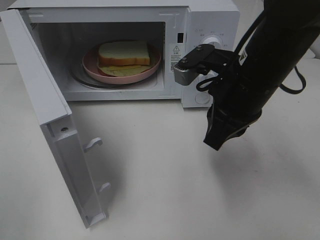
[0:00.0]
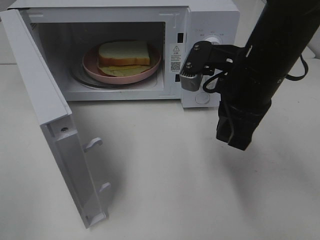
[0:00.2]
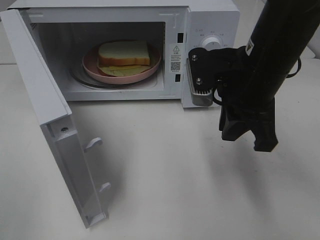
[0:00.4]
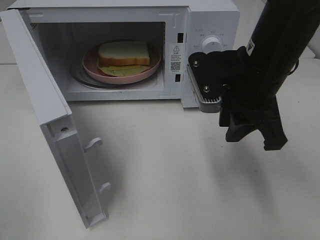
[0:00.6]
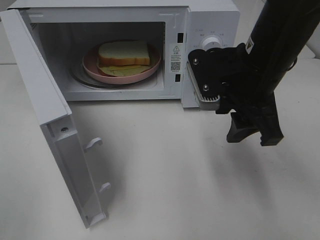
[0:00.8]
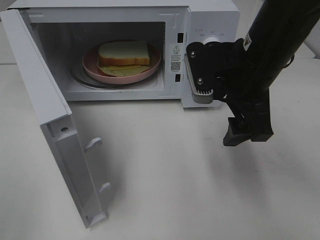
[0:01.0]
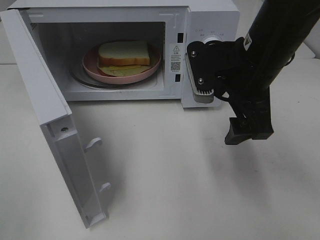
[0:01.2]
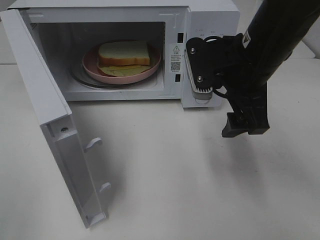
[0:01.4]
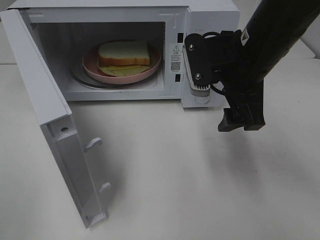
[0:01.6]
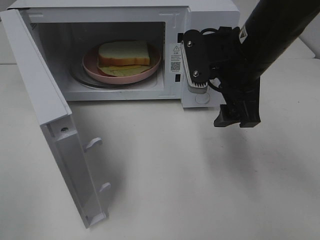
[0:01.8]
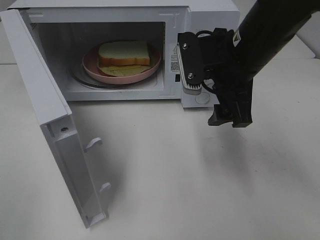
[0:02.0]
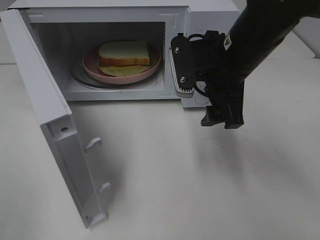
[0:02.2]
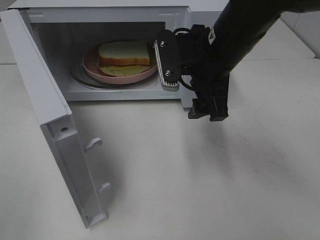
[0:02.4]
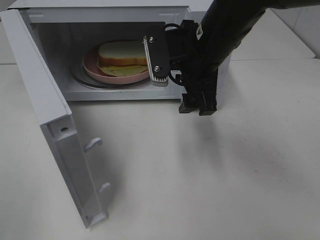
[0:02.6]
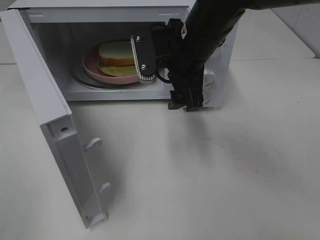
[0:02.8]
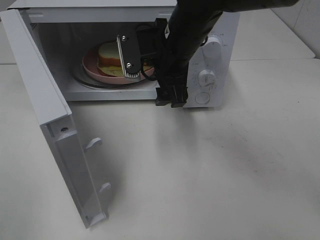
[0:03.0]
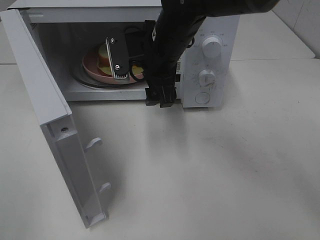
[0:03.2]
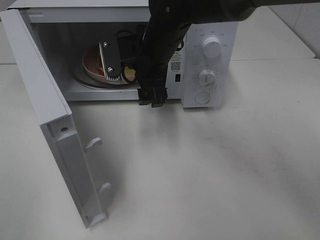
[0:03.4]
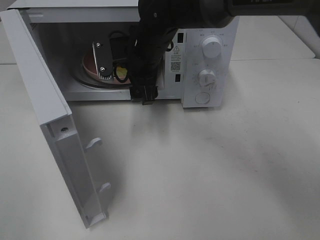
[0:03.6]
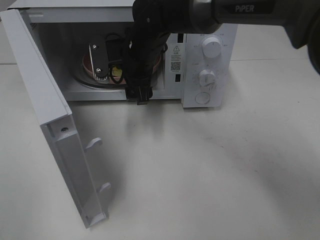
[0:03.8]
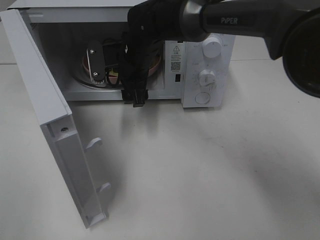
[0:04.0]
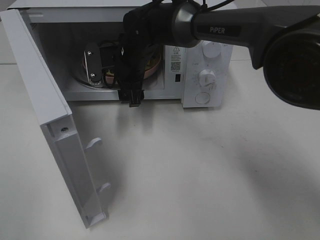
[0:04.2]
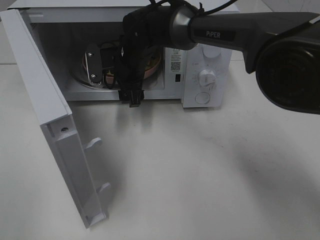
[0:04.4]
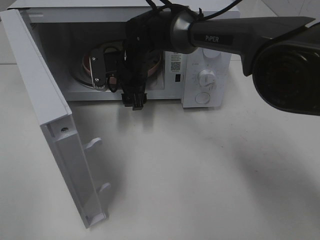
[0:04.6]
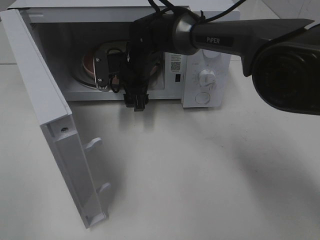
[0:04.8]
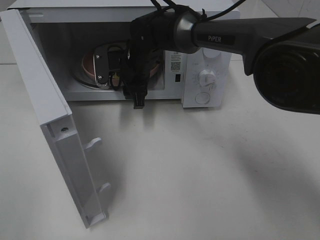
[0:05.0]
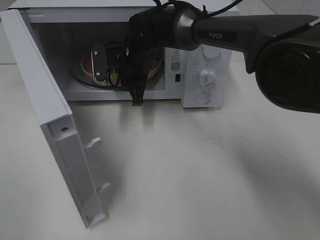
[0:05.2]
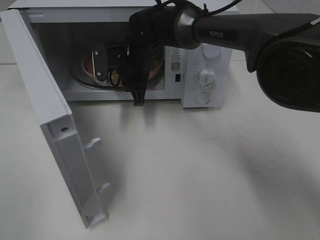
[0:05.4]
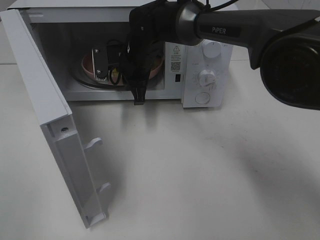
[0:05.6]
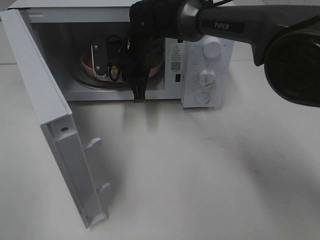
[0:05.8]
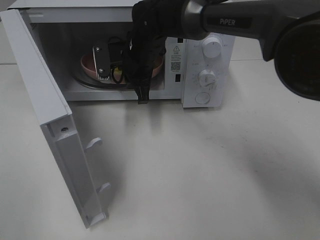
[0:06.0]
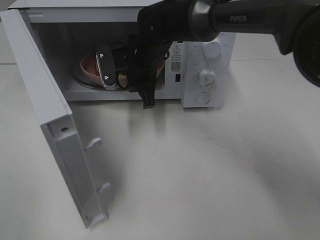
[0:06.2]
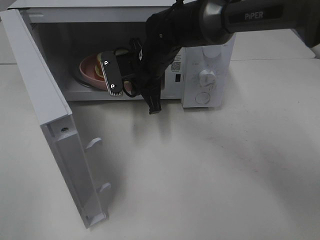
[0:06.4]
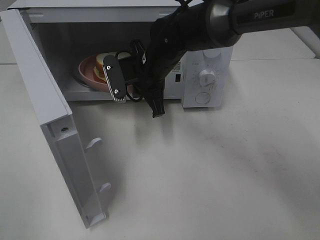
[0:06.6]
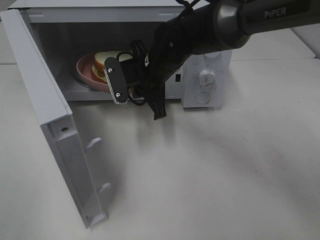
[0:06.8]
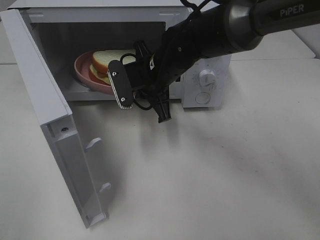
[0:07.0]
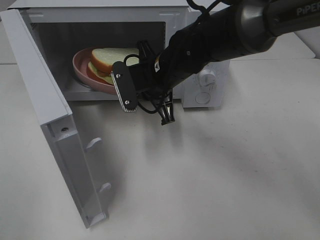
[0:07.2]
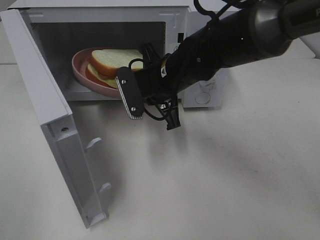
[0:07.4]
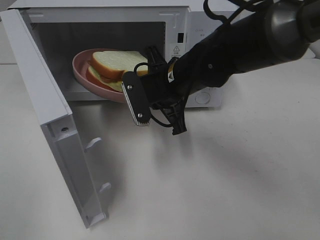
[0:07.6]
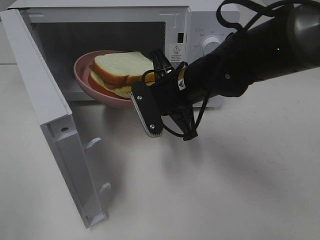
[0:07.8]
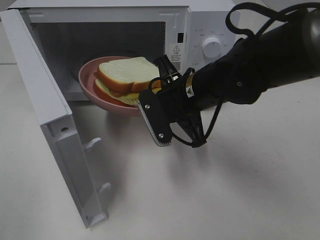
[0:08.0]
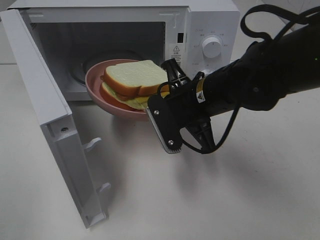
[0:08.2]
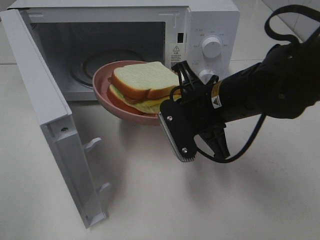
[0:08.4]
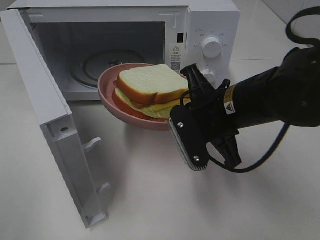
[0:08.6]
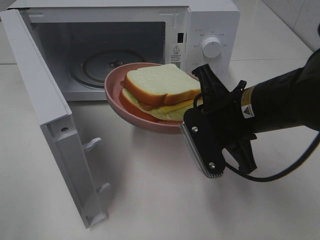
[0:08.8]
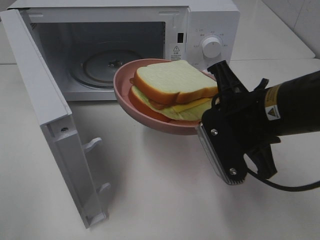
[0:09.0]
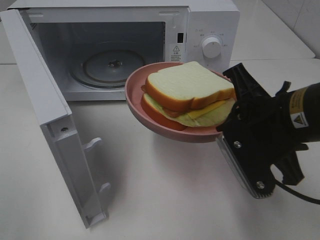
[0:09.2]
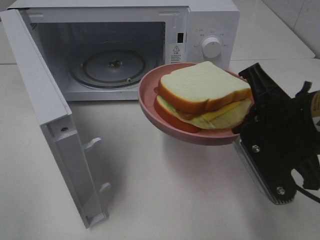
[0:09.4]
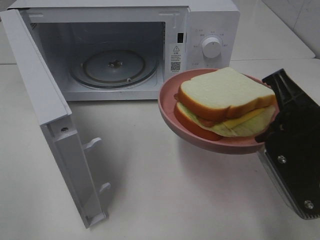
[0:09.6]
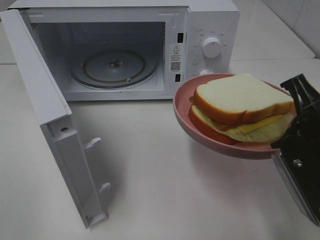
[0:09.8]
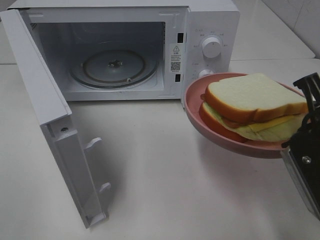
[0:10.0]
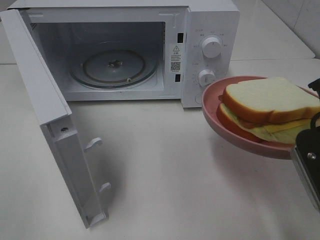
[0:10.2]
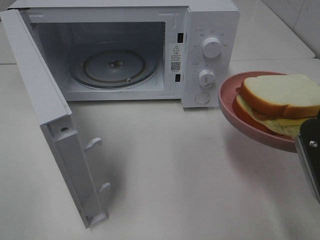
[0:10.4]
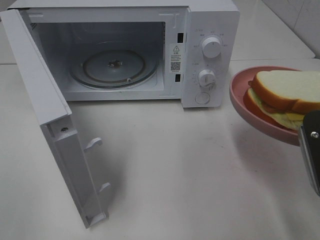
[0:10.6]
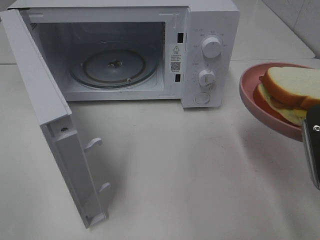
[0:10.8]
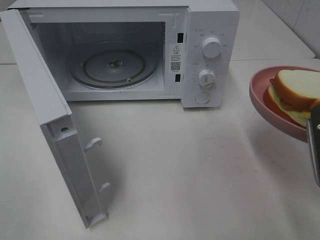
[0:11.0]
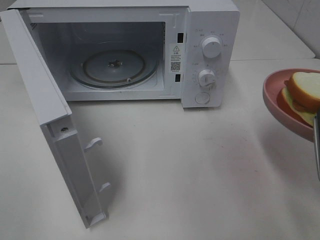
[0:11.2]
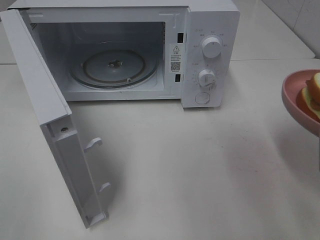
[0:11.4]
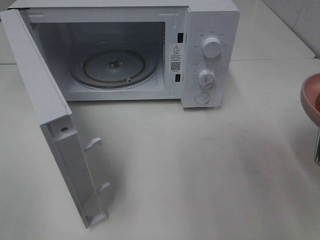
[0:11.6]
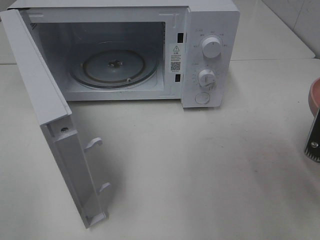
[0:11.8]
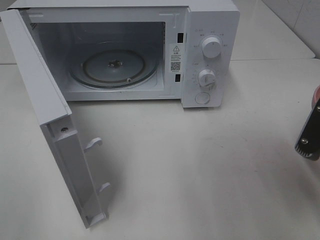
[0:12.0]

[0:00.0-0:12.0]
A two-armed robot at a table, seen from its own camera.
Task of the whole recording: Heat Sandwich.
Step, 0:00.0 to 0:05.2: Right hand: grab the plate with the sandwich.
0:00.0 to 0:01.6: The right gripper opens its fingers.
0:01.6 to 0:03.0: The right gripper travels to the left and forward by some 10 cm.
0:03.0 to 0:04.4: The right gripper shifts approximately 15 cm forward, to the left and downward.
0:04.4 to 0:06.0: The right gripper closes its fingers.
0:06.0 to 0:07.6: The right gripper goes roughly 10 cm backward and to the right.
0:07.6 to 0:09.0: The right gripper moves backward and to the right, some 15 cm.
0:09.0 to 0:10.4: The right gripper heads to the right and backward, covering approximately 10 cm.

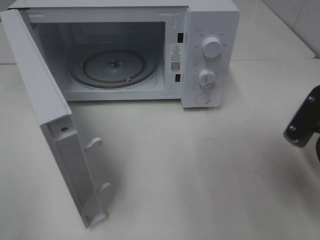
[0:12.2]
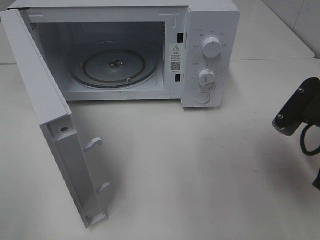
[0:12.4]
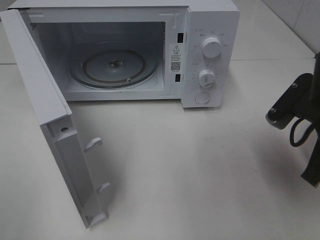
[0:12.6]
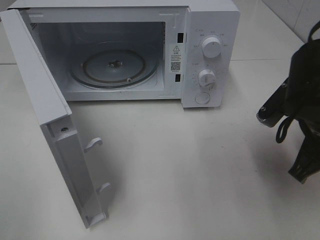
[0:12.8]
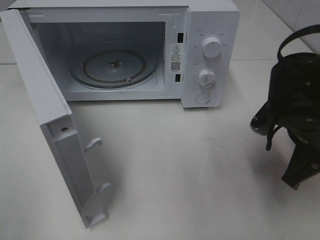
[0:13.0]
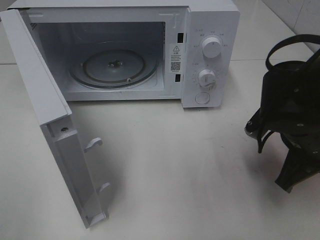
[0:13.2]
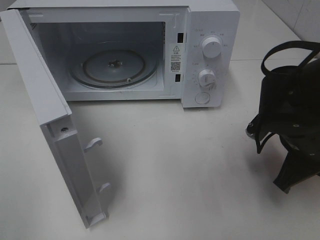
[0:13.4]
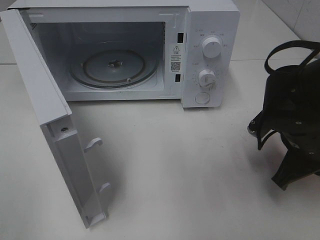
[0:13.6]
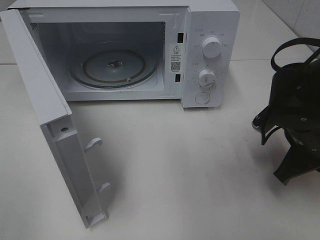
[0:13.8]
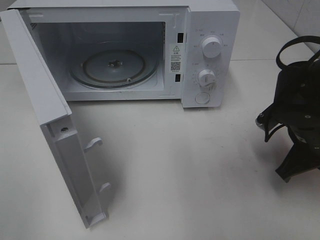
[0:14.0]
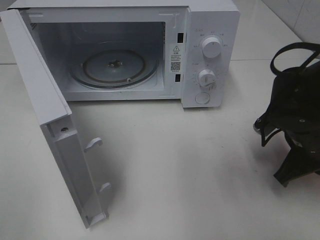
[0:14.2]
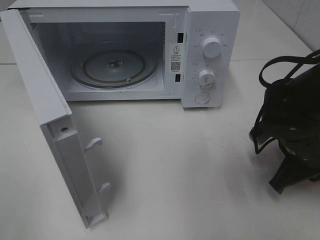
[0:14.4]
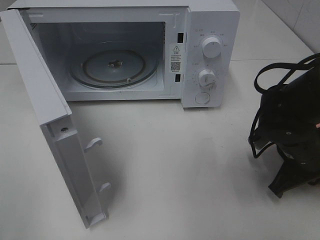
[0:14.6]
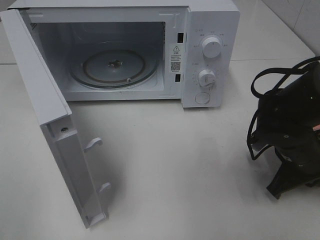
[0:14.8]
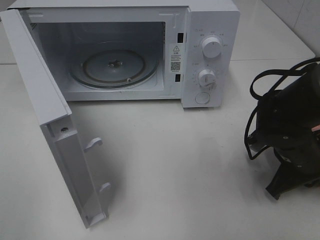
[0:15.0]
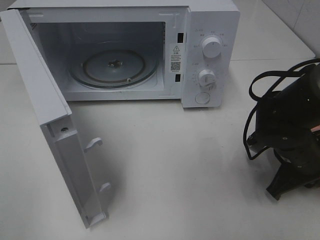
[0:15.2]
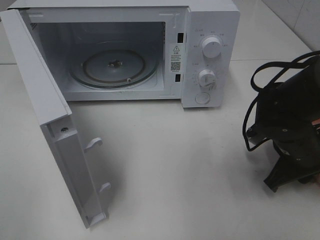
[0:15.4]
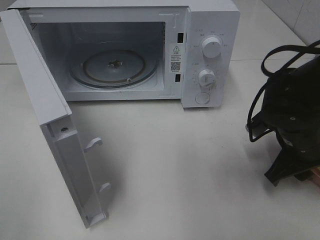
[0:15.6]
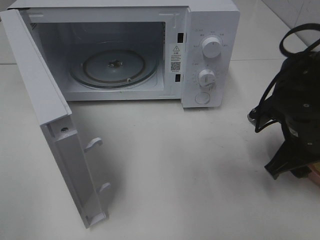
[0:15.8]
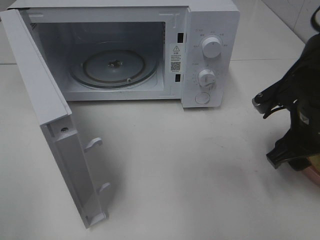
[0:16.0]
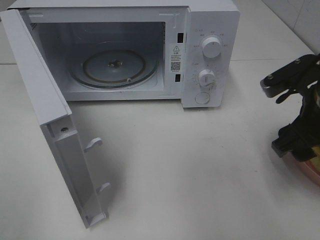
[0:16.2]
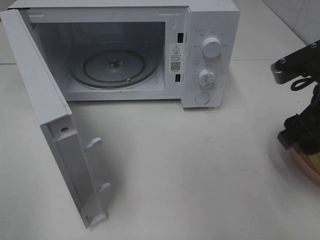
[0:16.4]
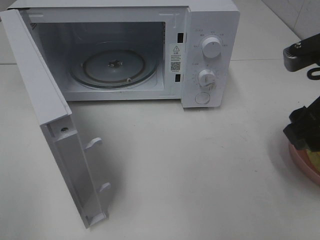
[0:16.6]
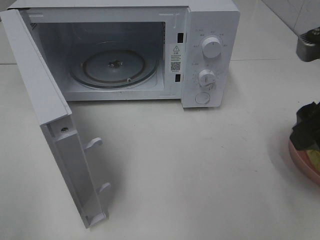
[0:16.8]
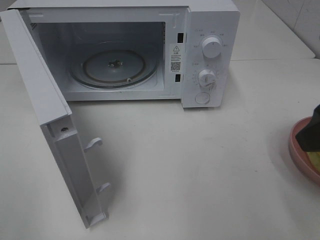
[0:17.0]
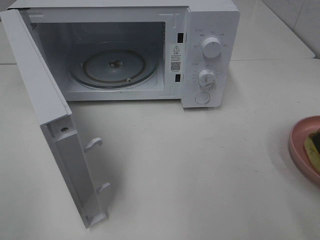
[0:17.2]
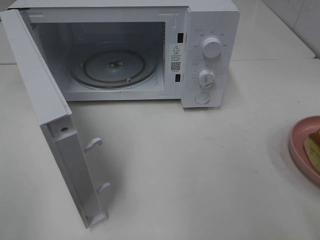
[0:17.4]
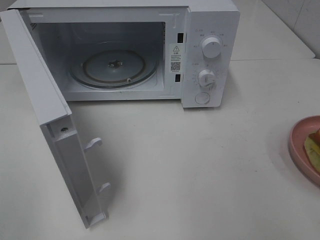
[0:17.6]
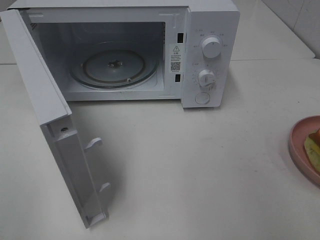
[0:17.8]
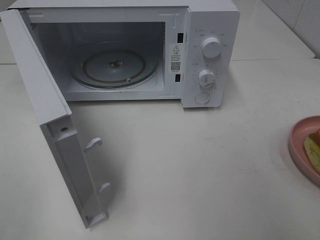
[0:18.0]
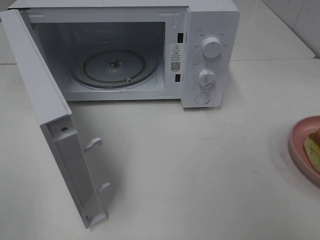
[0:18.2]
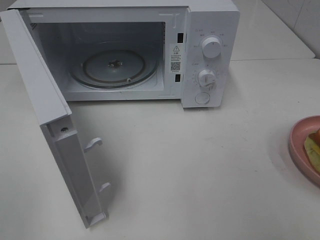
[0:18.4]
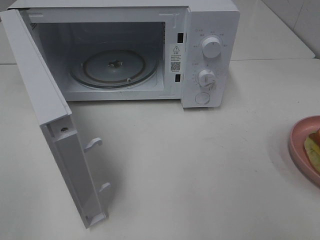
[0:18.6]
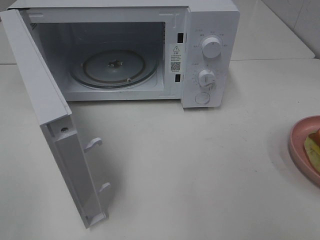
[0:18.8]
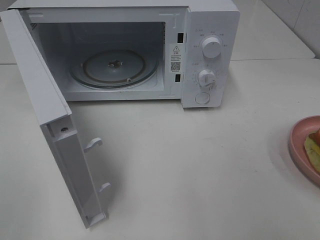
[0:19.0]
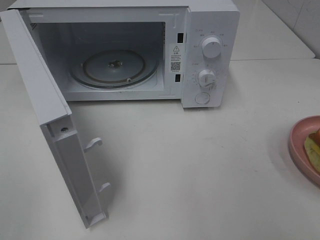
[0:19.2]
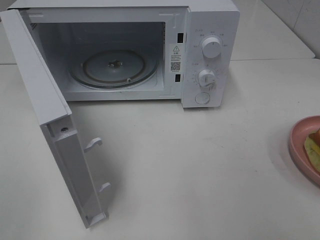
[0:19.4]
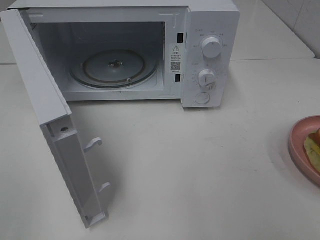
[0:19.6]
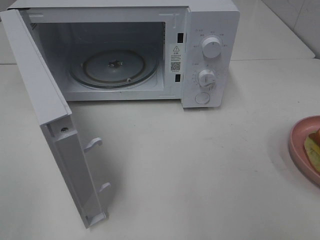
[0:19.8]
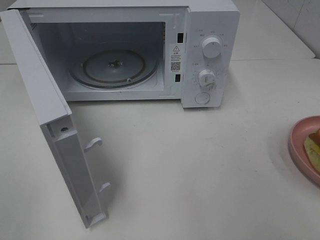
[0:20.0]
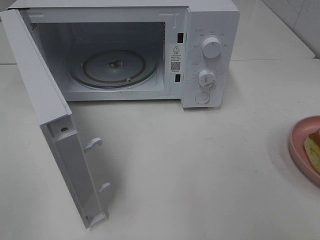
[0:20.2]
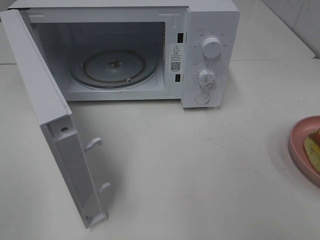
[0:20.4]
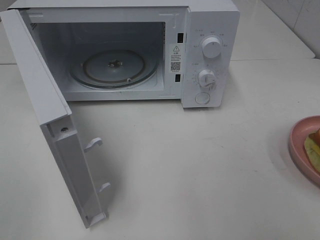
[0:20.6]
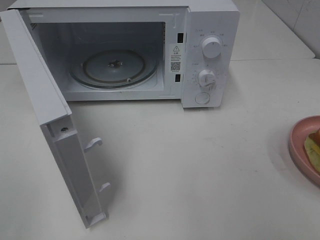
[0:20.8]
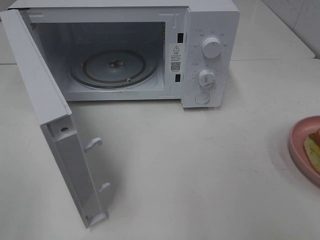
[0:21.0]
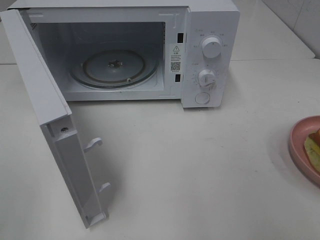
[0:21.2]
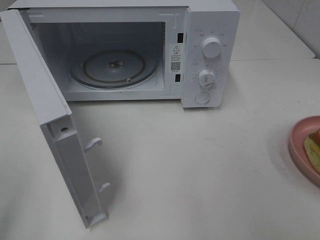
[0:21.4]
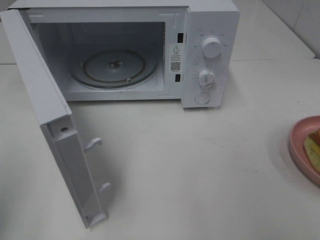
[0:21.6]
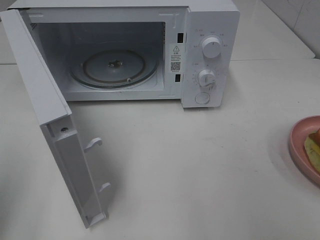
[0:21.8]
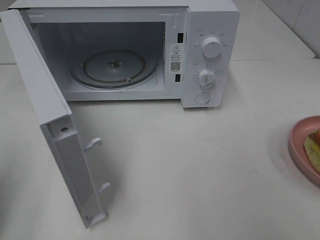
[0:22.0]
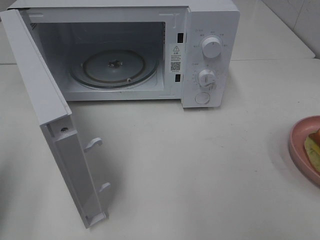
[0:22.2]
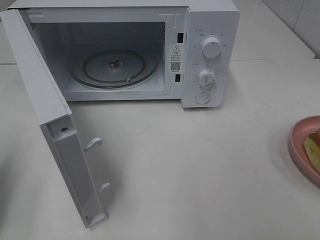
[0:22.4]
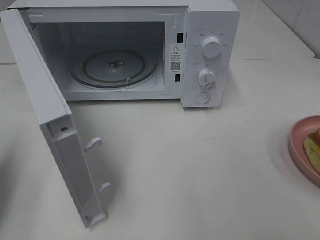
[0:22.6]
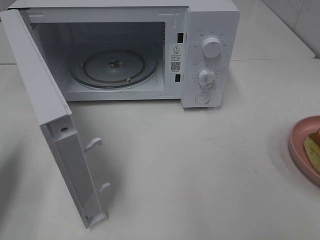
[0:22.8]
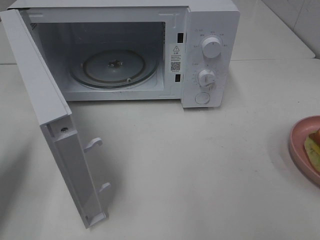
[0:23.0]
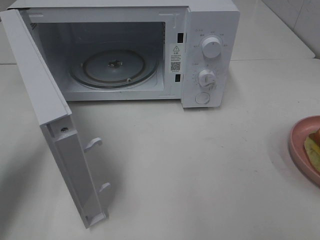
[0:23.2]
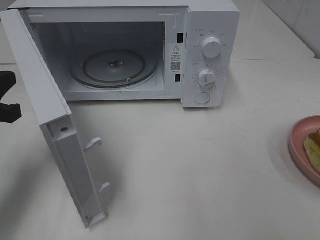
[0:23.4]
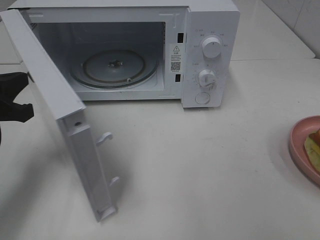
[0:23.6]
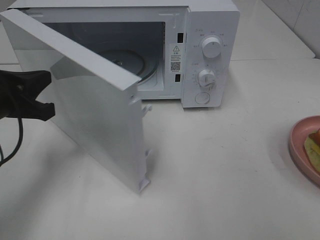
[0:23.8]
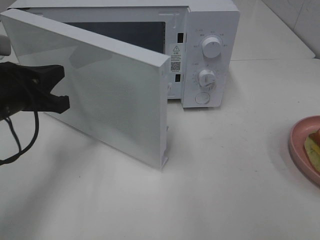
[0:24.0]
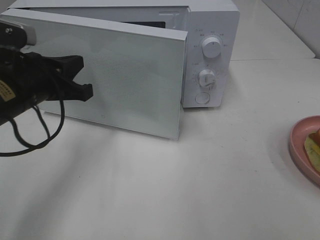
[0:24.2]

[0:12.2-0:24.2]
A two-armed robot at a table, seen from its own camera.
Task of the whole recording: Heat Sandwich.
Step, 0:12.2 to 0:16.6: Right hand: place the plate on the table.
0:12.2 to 0:13.8: The right gripper shifts approximately 10 cm forward and downward.
0:13.8 to 0:15.2: The right gripper shifts some 5 cm downward.
0:15.2 to 0:16.6: The right gripper goes about 20 cm upward, and opens up.
0:16.6 to 0:18.2: The right gripper heads backward and to the right, covering about 15 cm.
0:21.2 to 0:22.6: The left gripper heads forward and downward, covering approximately 20 cm, and closes up.
0:22.6 to 0:24.2: The left gripper moves to the right and forward, some 15 cm.
